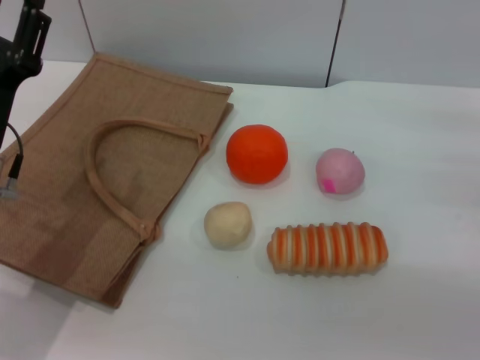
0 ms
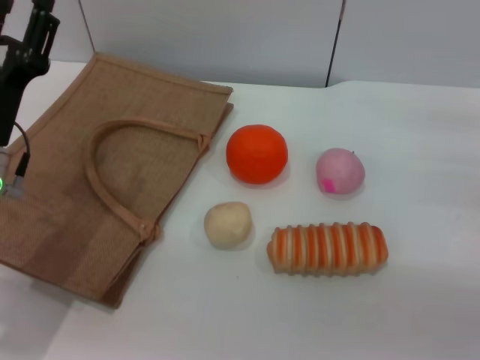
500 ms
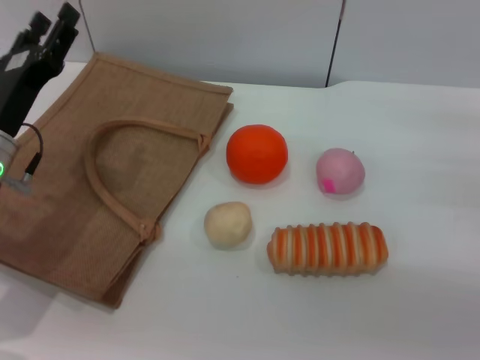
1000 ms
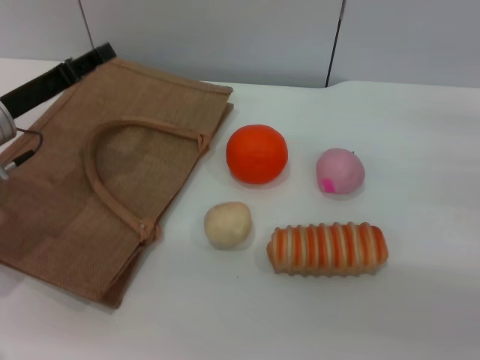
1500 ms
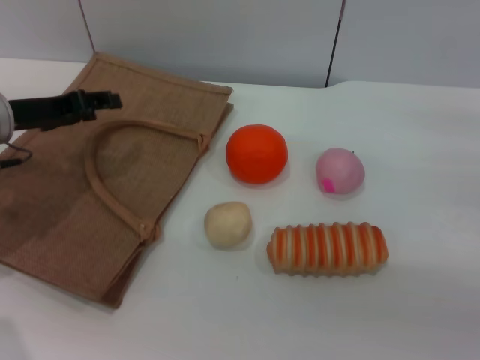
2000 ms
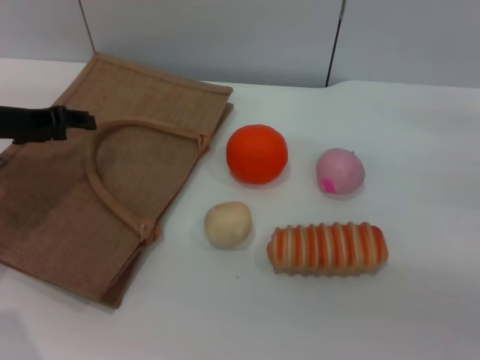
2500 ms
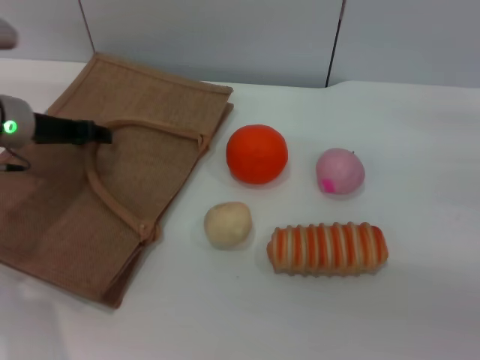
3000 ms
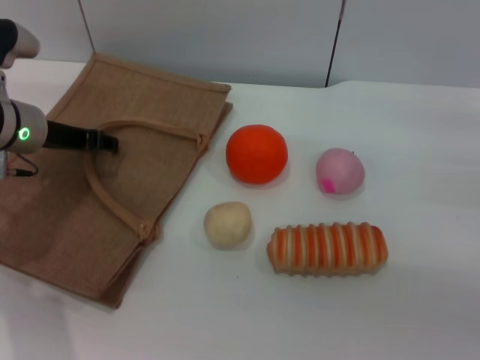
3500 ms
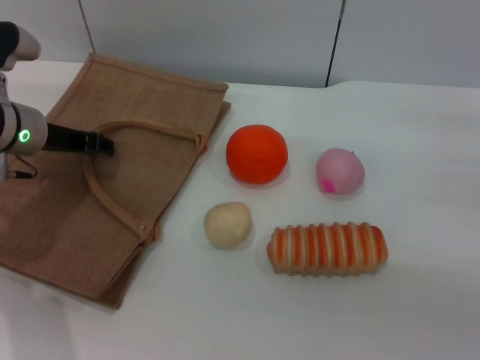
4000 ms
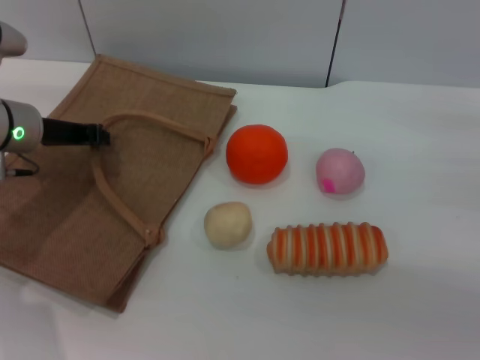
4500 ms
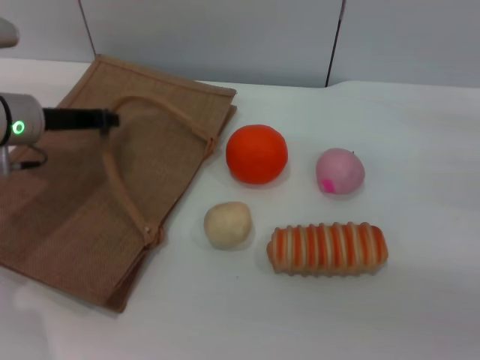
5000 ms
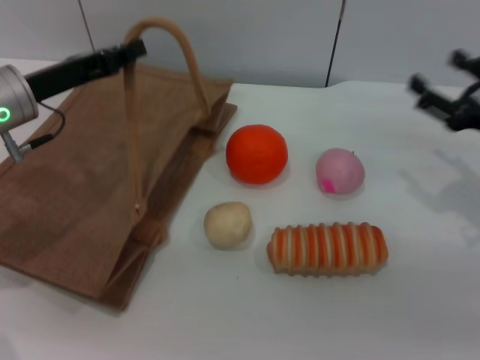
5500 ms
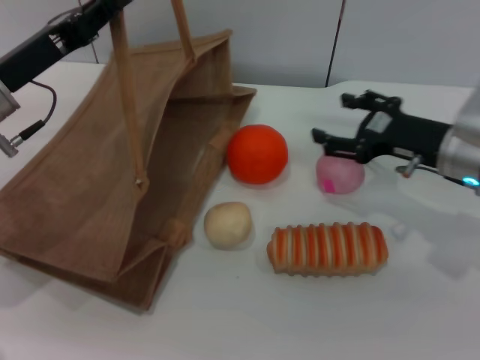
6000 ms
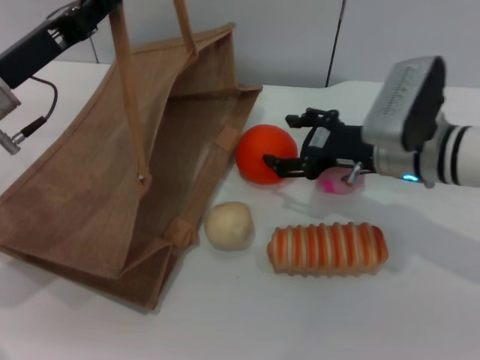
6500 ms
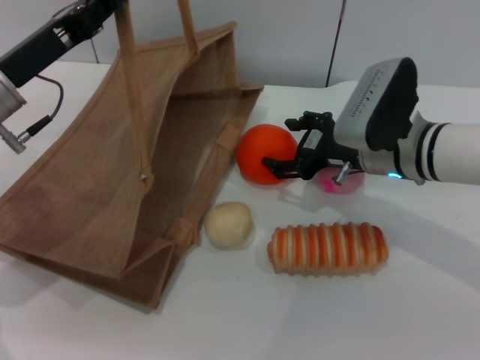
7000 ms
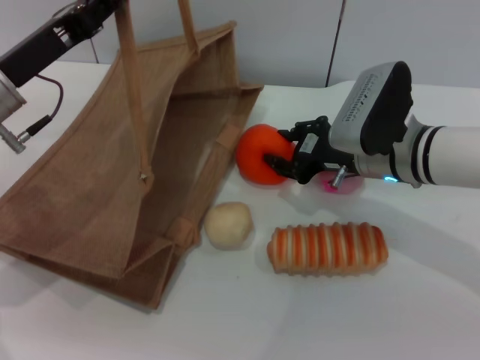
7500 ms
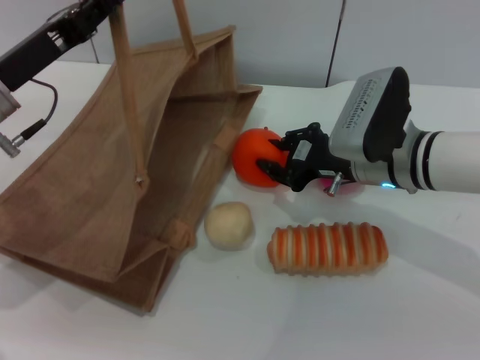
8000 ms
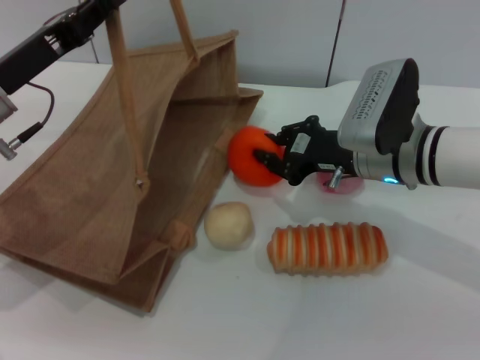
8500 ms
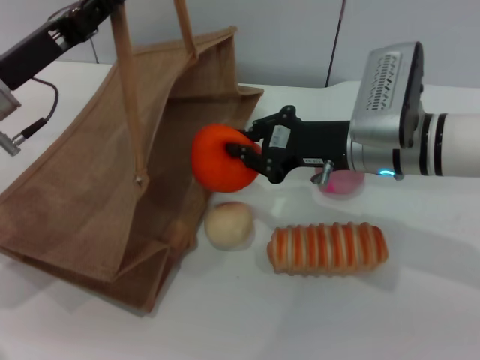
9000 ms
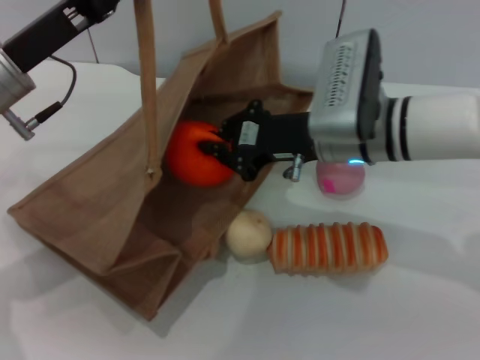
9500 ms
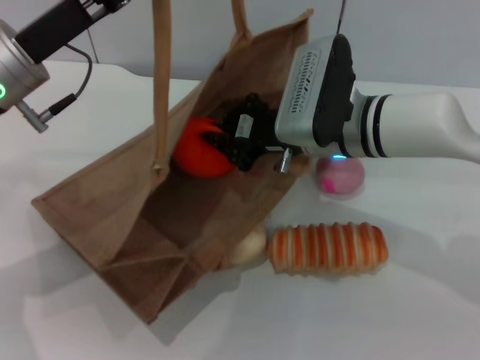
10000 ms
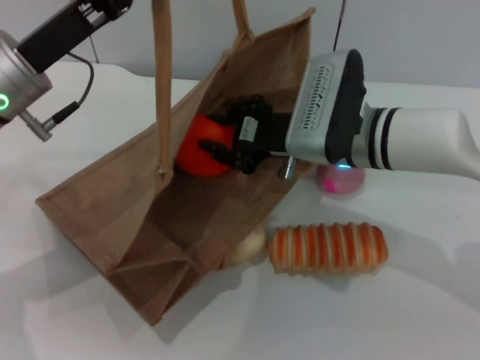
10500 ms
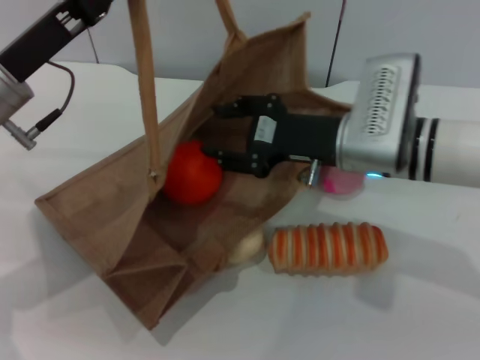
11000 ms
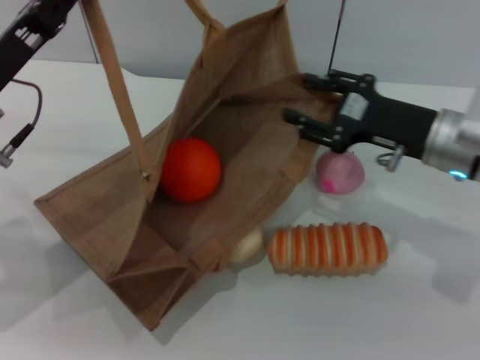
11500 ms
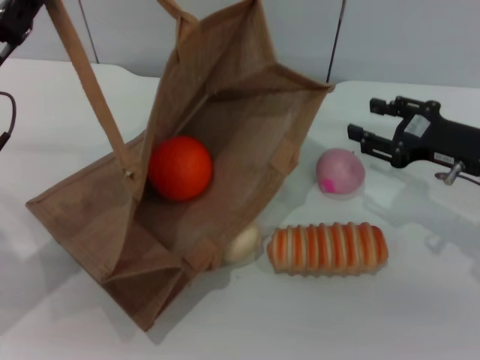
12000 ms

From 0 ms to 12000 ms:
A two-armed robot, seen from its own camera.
Task of the whole recording: pick up the orange and peach from the table and place it in the brown handbag.
Step, from 0 ms to 5000 ms: Lift the woven bag with the left gripper to open it.
Step, from 5500 ms to 8500 ms: Pick up the orange with the right gripper.
Step, from 9000 ms to 11500 ms: Place the orange into the woven bag with the right gripper.
From 0 ms to 2000 ms: The left gripper is displaced forward and to the left by approximately 10 cm.
From 4000 ms to 6000 ms: The left gripper heads backward, covering roughly 5 cm, and closes up. The right gripper is displaced to the left and forward by some 15 cm.
From 6000 ms to 8000 ms: The right gripper shifts approximately 10 cm to the left, and closes up.
From 8000 ms to 10000 ms: The right gripper shifts some 5 cm to the left, and closes its fingers.
From 10000 ms to 12000 ms: The left gripper moves to the left, approximately 5 cm. Meanwhile the right gripper moves to the right, roughly 20 cm, and opens up.

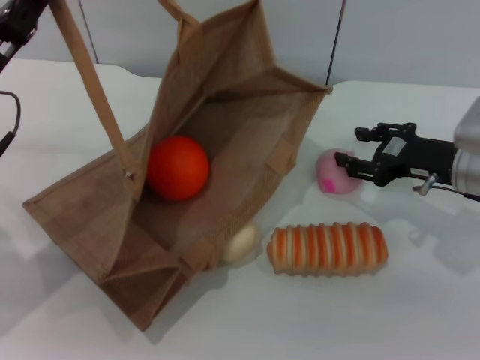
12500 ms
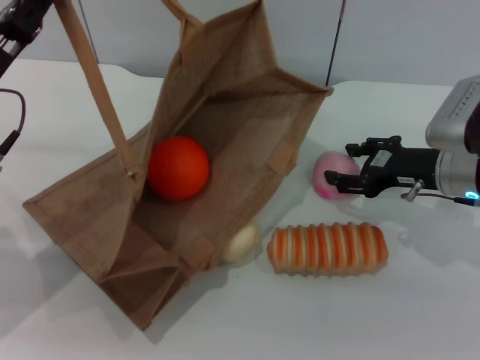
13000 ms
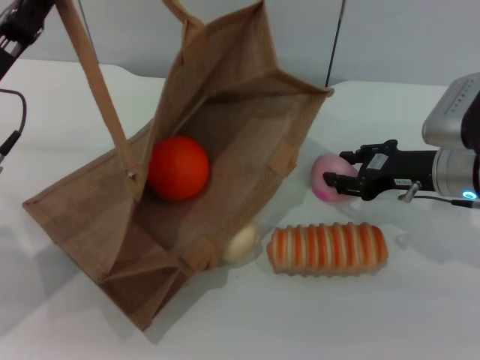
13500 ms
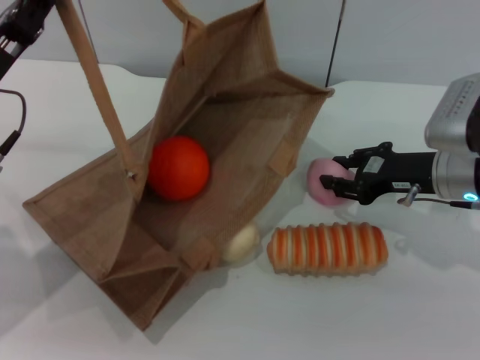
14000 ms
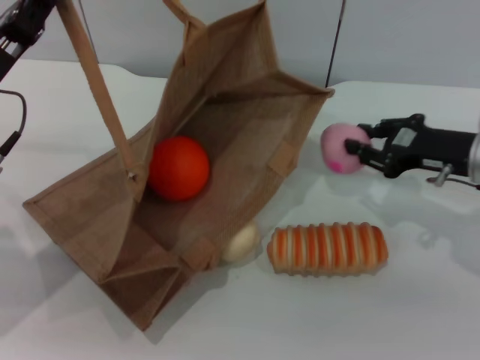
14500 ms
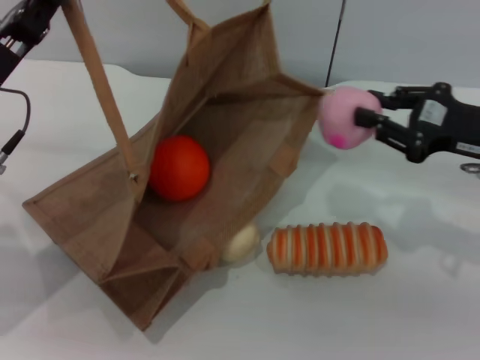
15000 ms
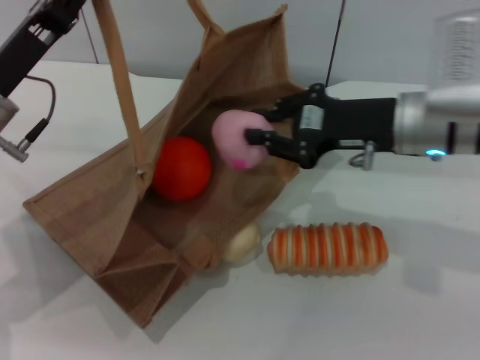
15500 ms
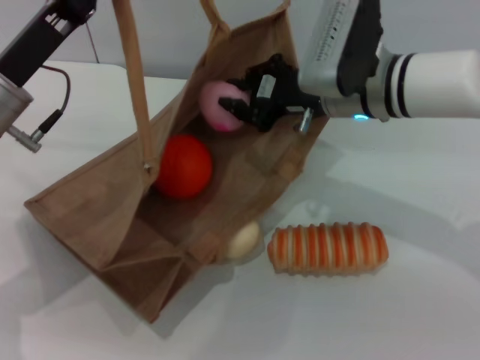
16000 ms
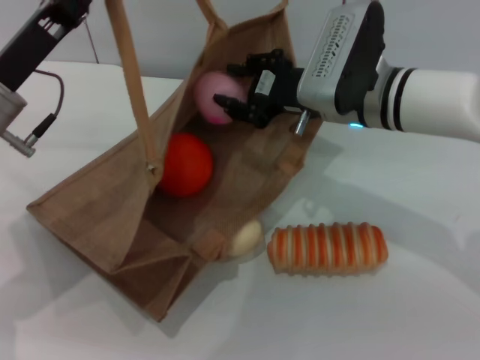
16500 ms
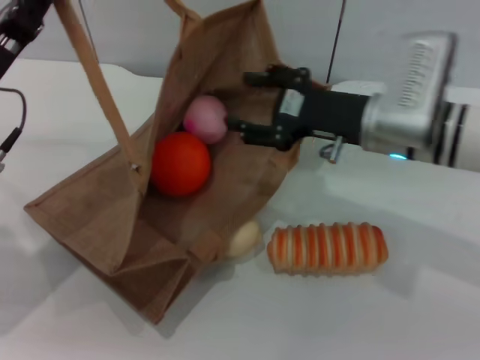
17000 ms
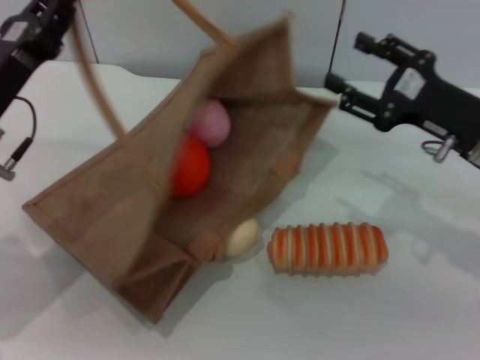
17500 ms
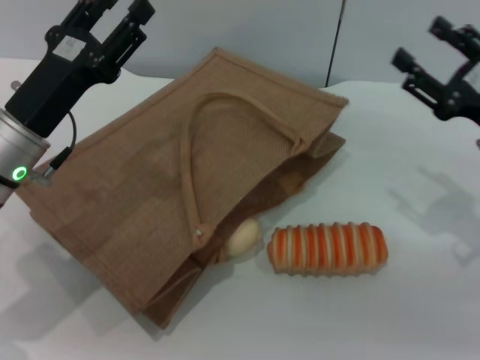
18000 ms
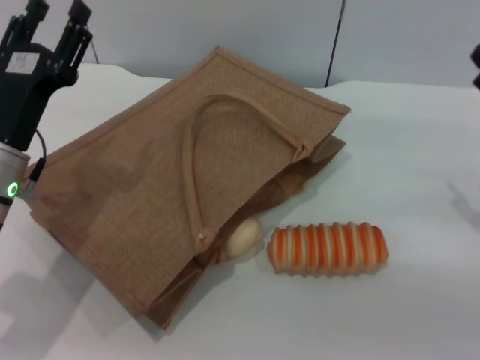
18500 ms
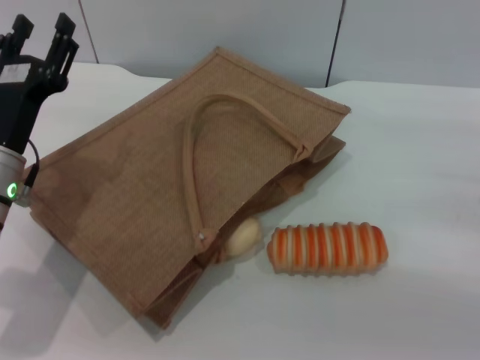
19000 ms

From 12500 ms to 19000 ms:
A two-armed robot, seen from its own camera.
Task of the whole recording: pick up the orange and peach from the table and place it in the brown handbag.
Step, from 12500 ms to 14500 ms: Pick up the peach with the right gripper.
Step, from 15000 ms to 17000 ms: Place the peach into the woven bag with the right gripper.
From 12500 ms to 14500 ms: The right gripper closes up.
From 14500 ms to 17000 ms: The right gripper shifts approximately 10 cm to the left, and opens up.
From 17000 ms to 19000 ms: The right gripper shifts roughly 20 cm to the right and backward, while the left gripper moves downward, some 5 cm, and opens up.
